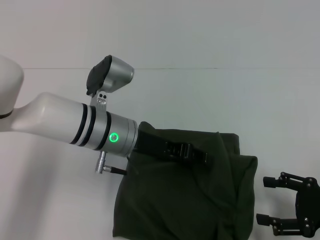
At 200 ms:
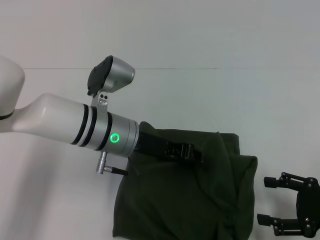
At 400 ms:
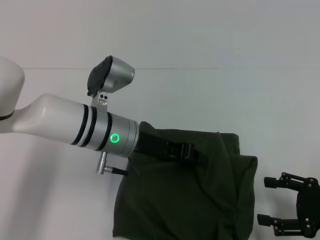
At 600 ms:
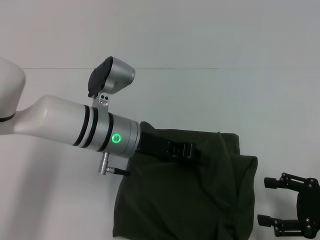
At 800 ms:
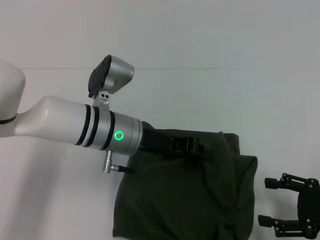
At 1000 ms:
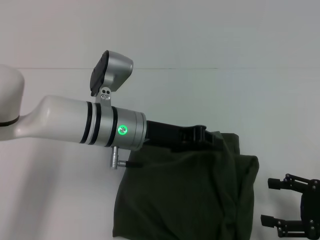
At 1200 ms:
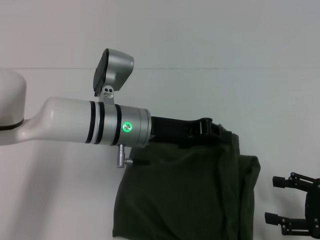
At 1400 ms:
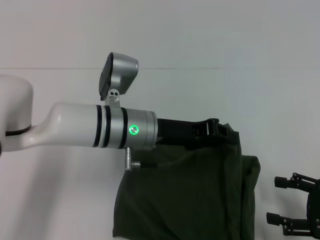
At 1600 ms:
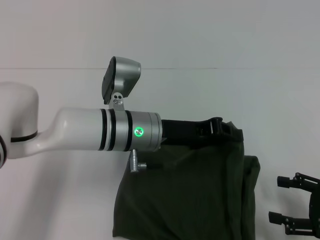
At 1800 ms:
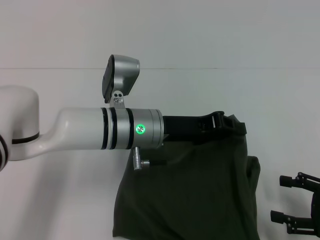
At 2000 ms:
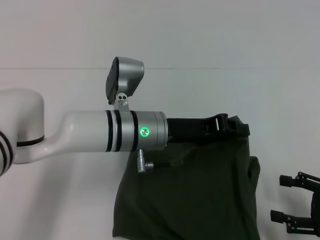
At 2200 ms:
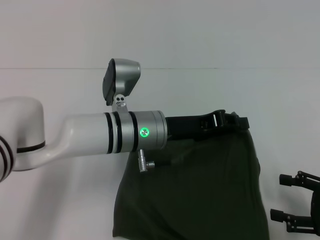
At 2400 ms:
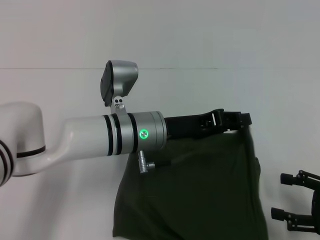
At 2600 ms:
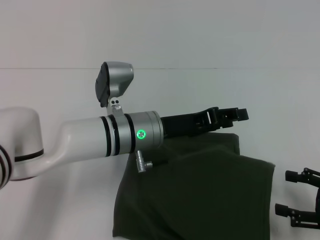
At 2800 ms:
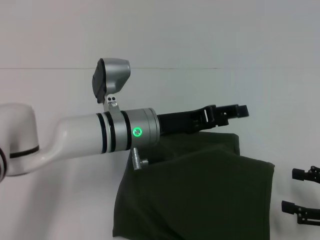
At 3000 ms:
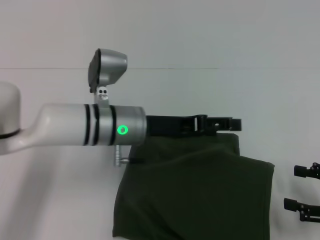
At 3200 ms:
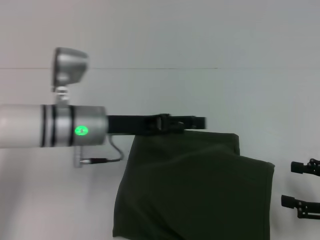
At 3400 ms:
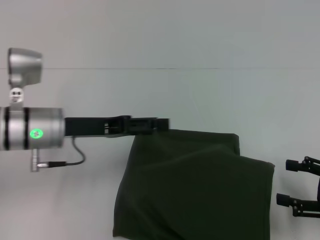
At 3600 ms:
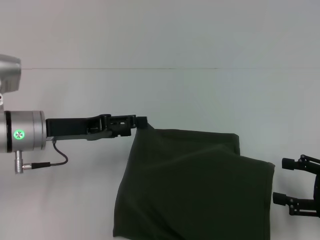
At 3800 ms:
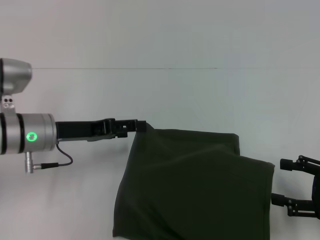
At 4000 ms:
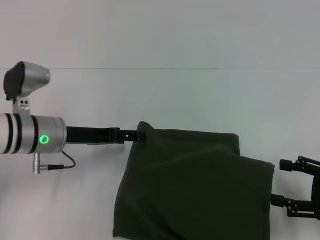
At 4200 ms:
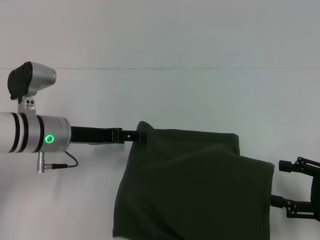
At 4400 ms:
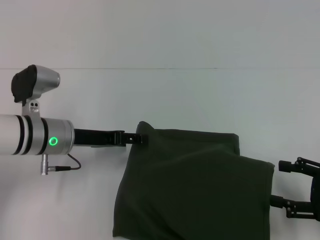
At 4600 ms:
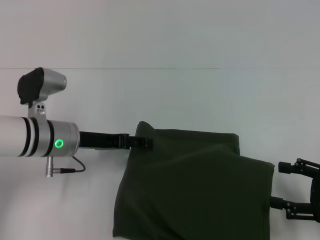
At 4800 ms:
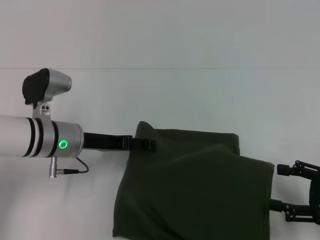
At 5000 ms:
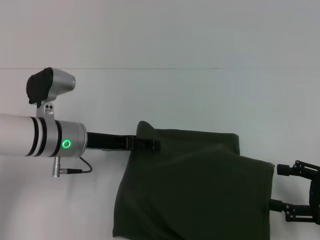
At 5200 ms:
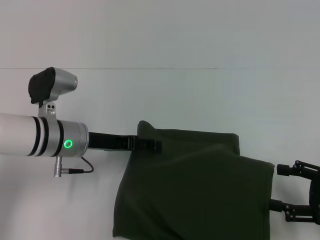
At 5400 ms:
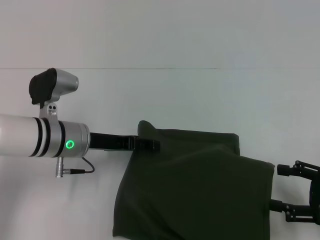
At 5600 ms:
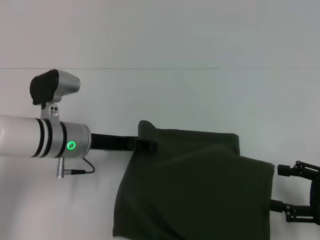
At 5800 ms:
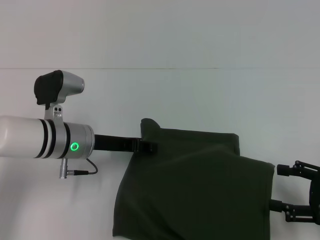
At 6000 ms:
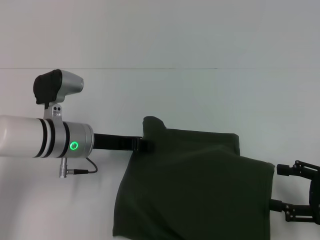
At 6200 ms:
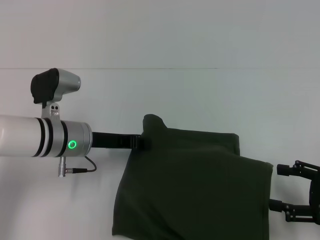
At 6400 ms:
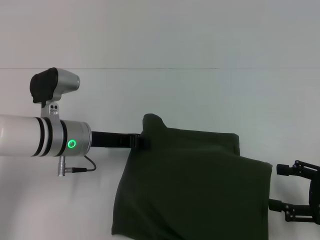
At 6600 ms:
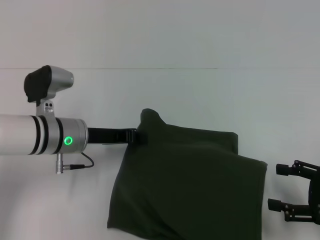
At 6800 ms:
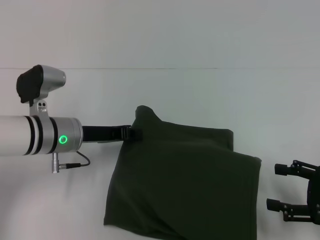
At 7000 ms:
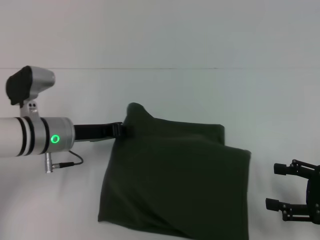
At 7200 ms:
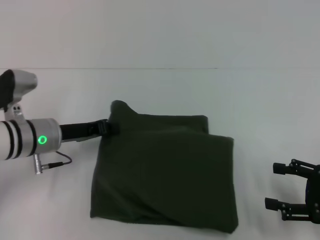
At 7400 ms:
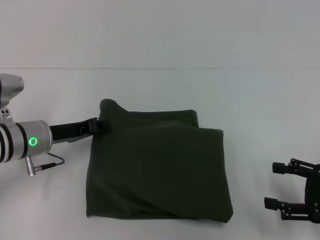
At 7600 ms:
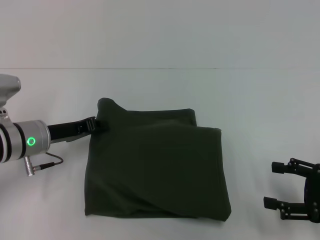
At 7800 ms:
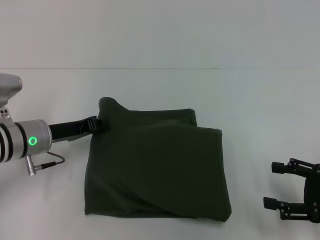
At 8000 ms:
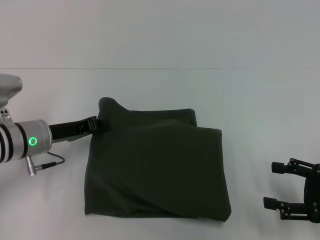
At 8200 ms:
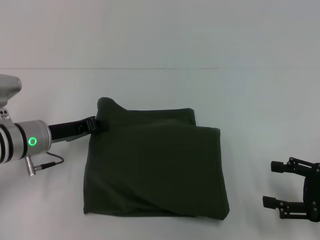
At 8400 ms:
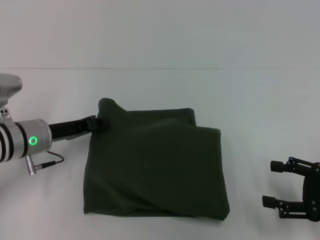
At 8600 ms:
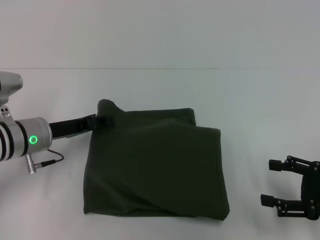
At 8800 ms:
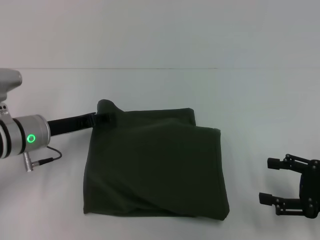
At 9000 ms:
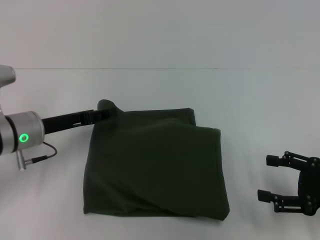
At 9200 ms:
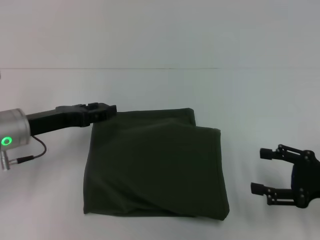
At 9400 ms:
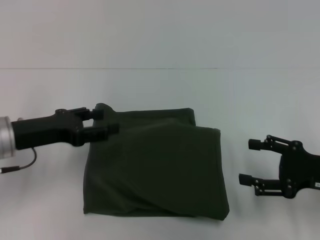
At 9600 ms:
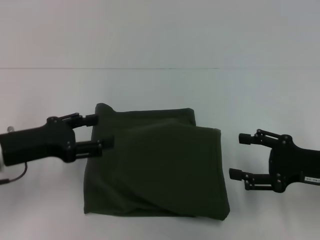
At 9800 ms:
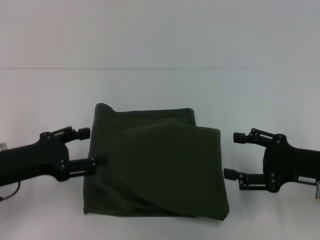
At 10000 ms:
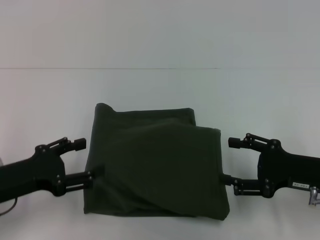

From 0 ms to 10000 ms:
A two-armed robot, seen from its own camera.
Step, from 0 ms to 3200 ms: Fold the clothes with your left hand.
From 0 ms to 1400 ms: The left gripper closes.
From 1400 ms to 2800 ms: The left gripper opens up.
From 2800 ms to 4200 ms: The left gripper is displaced to the left by roughly 15 cm.
From 4200 ms to 5800 ms: The left gripper closes its fingers.
From 5800 ms to 7200 ms: The left gripper closes its fingers.
From 7200 ms to 8600 ms: The grippers move only a little.
From 8600 ms to 10000 ms: The right gripper travels to the left by roughly 5 cm. Meanwhile the left gripper moves backward, approximately 10 cm, and opens.

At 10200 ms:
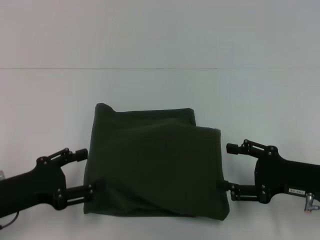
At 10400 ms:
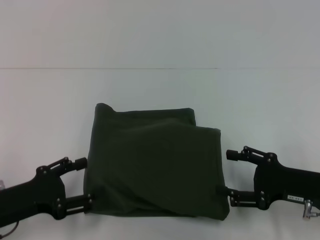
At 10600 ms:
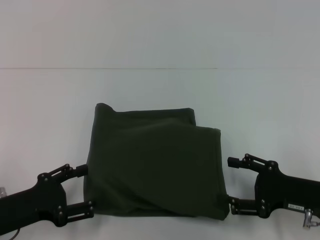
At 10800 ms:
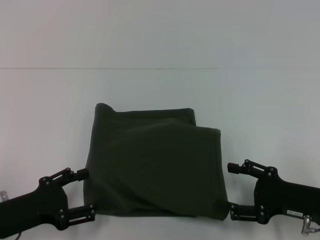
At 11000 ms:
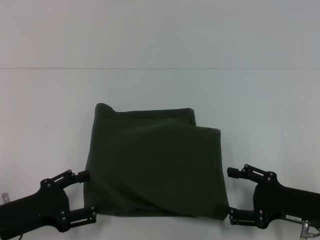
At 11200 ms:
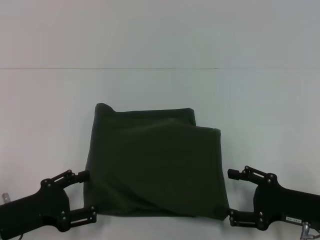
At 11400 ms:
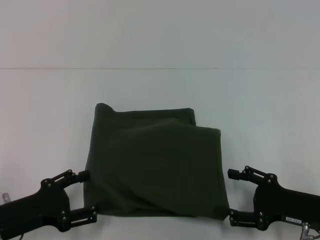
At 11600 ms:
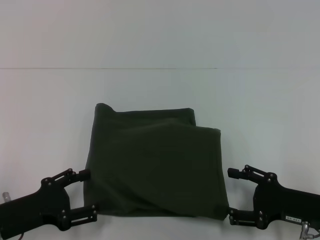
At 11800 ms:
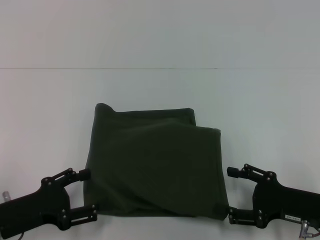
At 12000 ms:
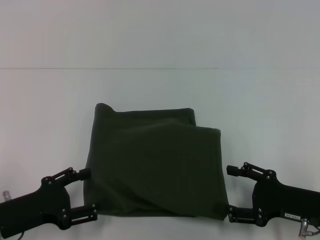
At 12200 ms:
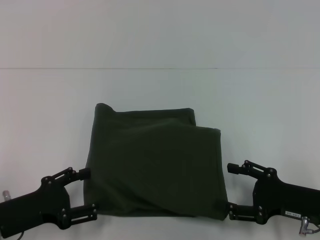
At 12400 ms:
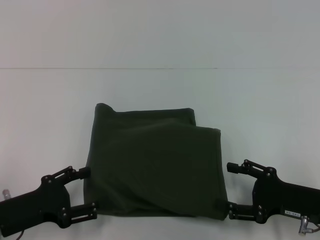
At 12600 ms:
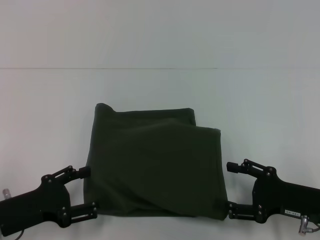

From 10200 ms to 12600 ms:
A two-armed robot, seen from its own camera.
From 10200 ms to 11400 ms: The grippers stay close to where they were, moving slightly.
From 11400 ms to 12600 ms: The two grippers keep their place.
